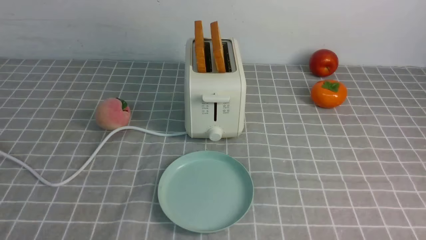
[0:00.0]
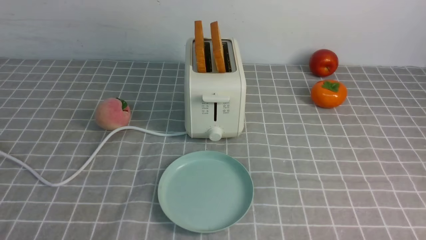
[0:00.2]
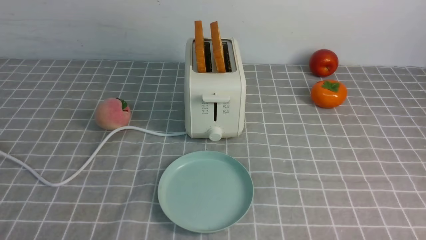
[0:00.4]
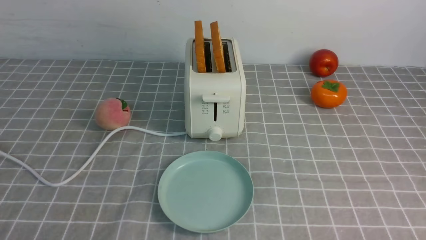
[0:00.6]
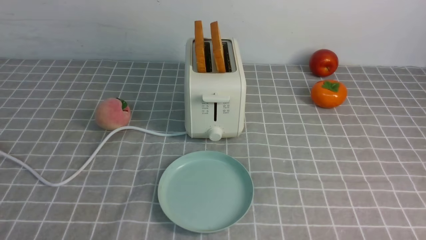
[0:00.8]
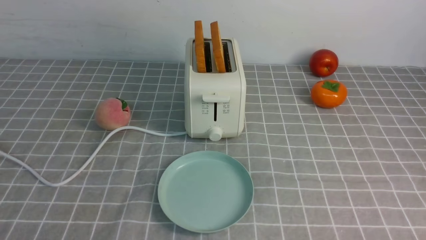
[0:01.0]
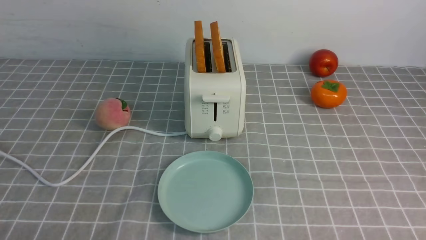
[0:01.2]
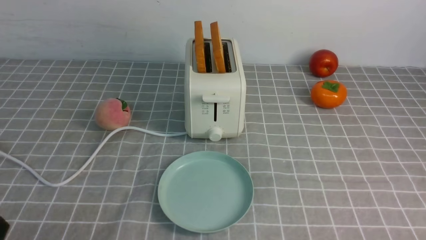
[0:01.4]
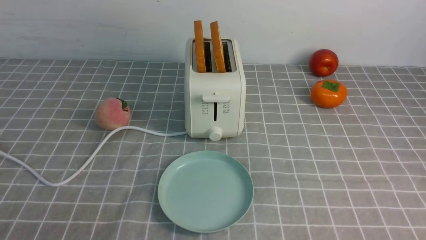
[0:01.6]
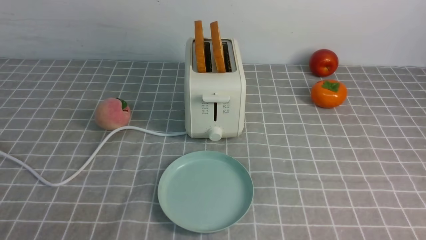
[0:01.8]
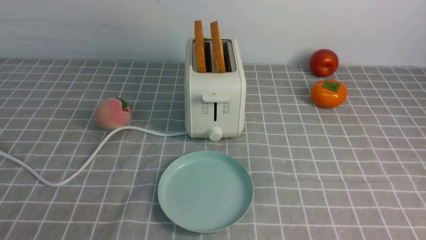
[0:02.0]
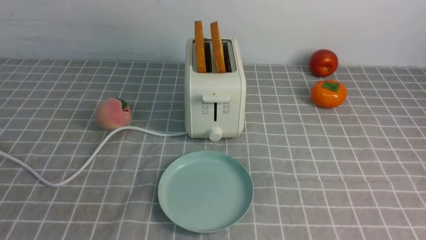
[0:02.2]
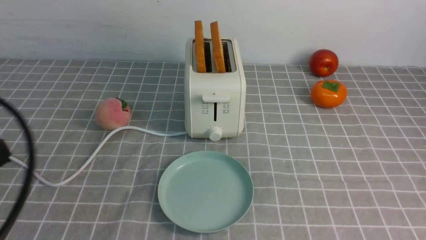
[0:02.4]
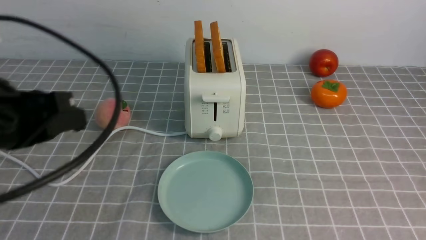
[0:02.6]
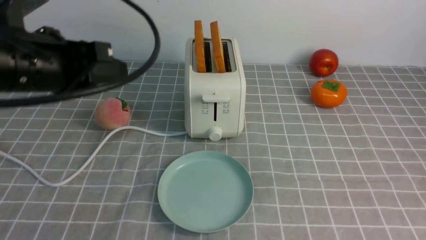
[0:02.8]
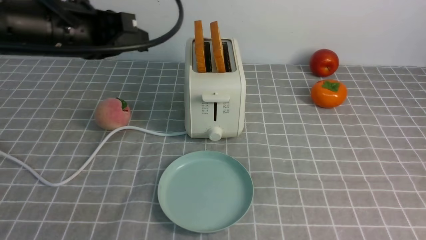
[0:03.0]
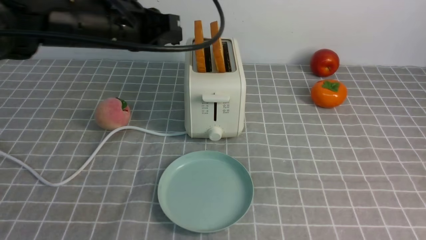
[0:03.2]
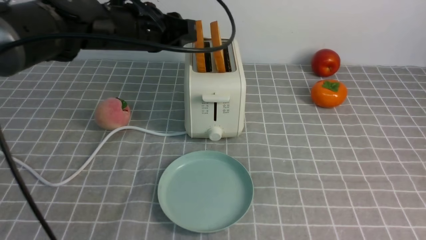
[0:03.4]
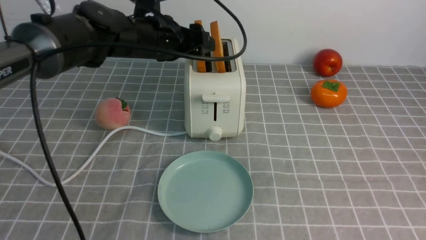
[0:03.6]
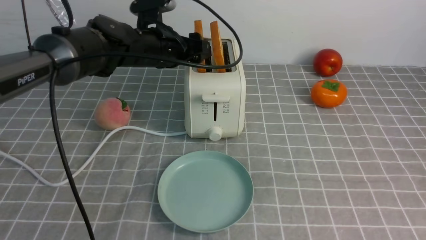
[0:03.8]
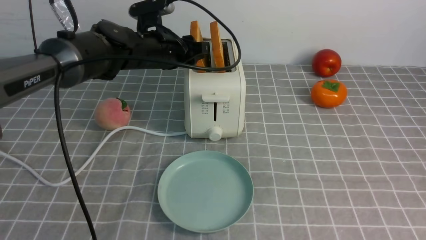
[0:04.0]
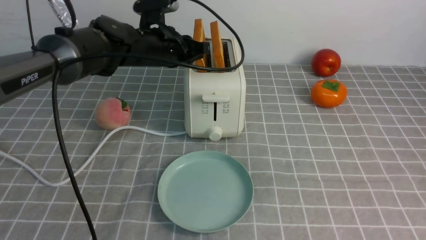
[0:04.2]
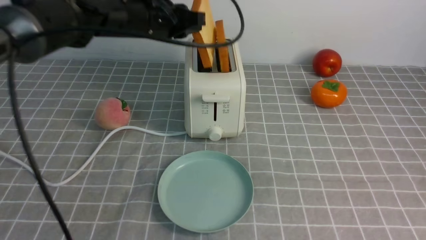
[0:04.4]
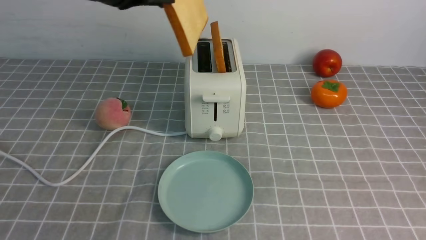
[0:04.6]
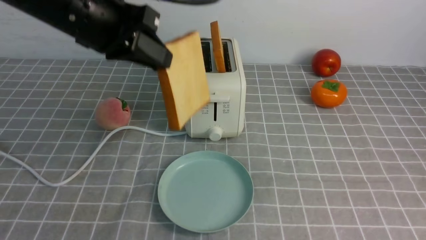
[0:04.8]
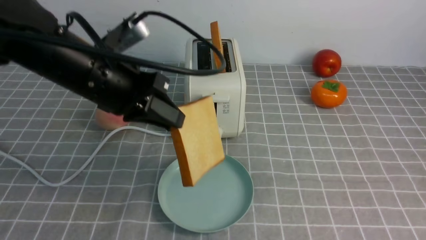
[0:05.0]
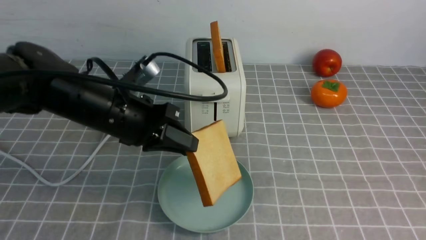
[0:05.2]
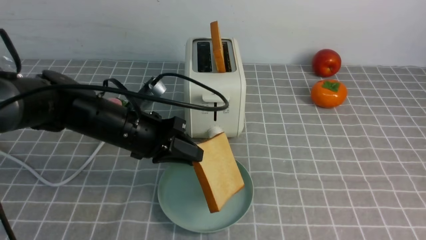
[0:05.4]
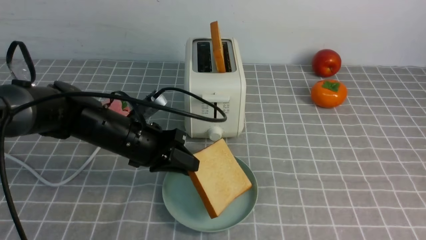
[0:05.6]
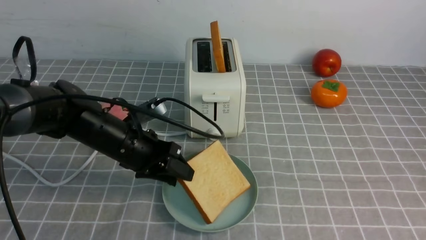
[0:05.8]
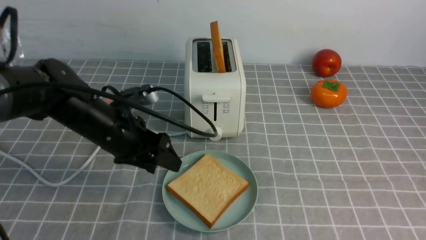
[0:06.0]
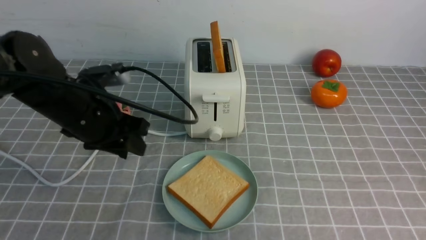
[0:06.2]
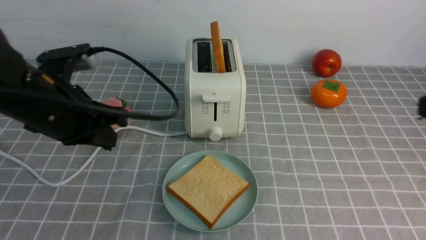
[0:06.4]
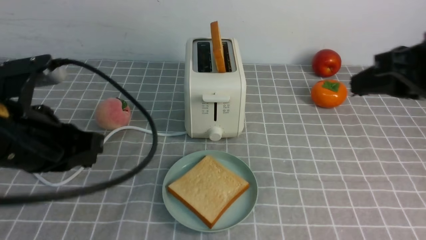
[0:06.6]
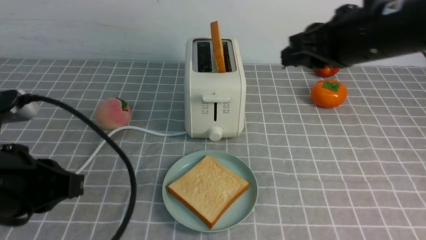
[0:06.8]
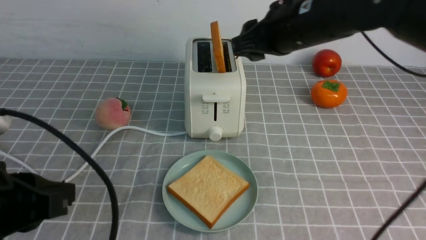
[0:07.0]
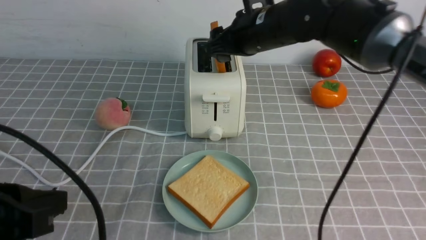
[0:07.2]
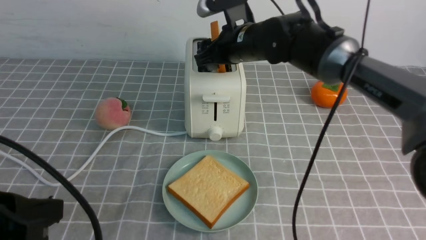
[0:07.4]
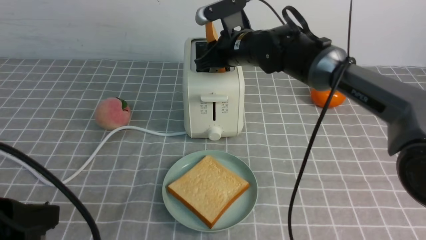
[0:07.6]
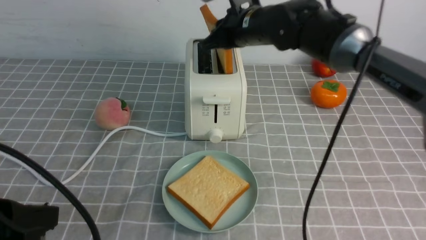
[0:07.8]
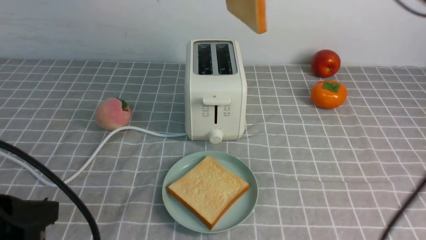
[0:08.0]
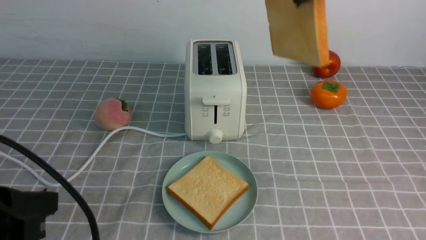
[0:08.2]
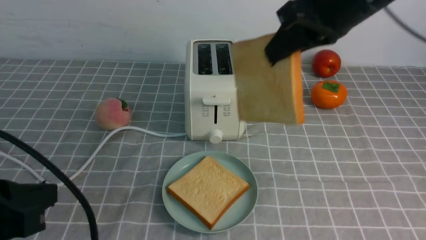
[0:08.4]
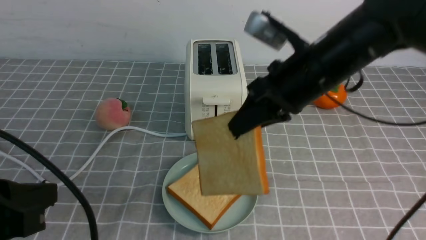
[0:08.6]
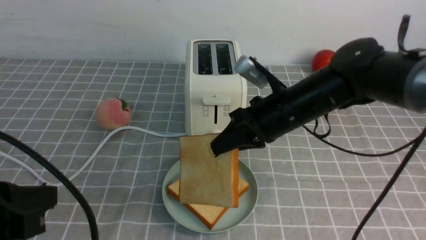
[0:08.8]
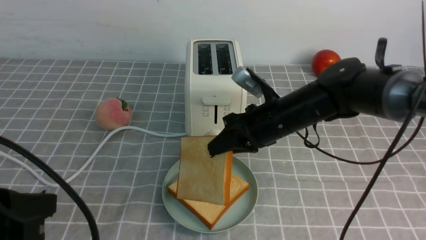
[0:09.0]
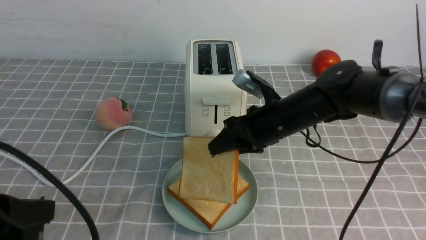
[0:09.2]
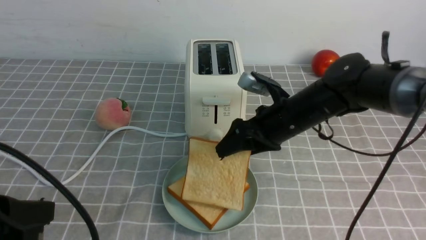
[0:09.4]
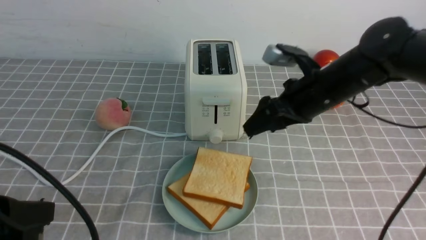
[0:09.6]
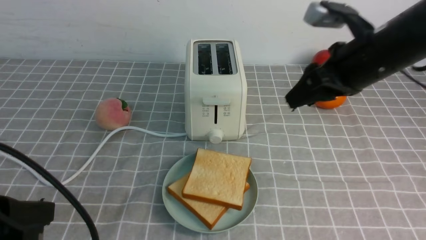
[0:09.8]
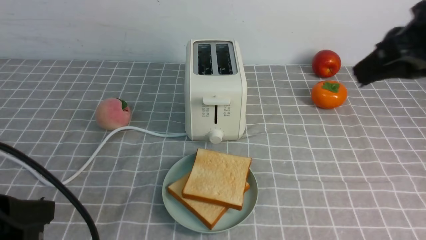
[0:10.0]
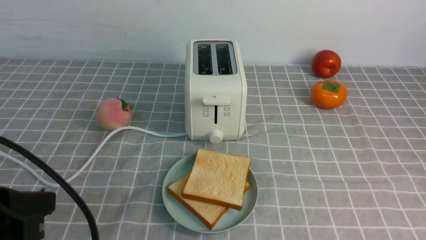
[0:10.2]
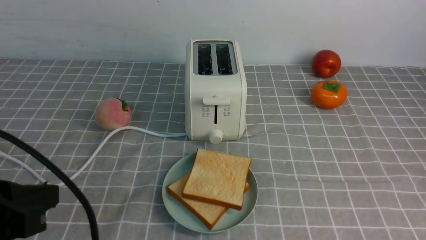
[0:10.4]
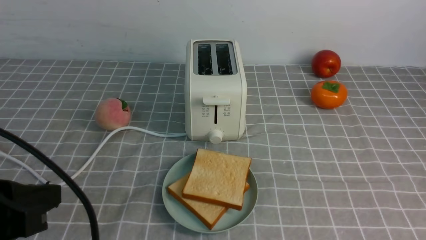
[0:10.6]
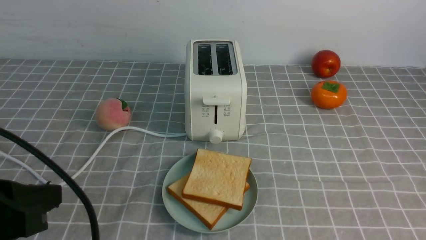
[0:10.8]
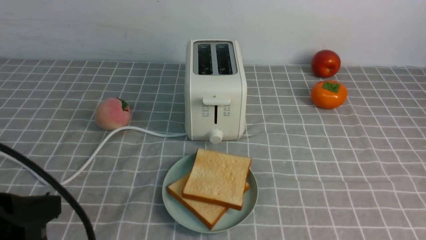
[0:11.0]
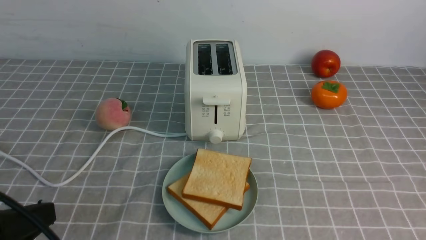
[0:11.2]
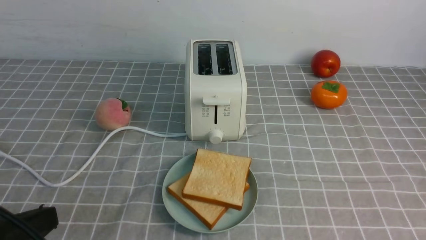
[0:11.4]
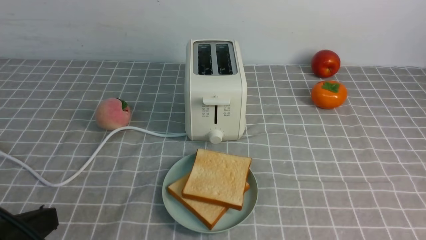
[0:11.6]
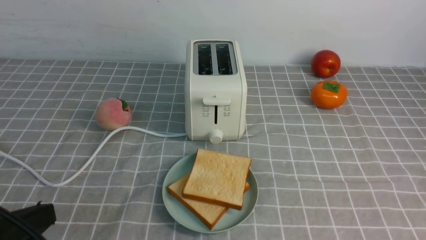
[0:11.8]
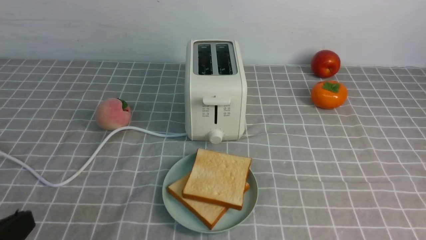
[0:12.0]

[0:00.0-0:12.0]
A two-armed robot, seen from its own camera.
Task of the whole recording: take toasted bread from bread machine on grey coffee table place on plate.
Step, 0:00.0 to 0:04.6: use the left arm to take out a slice of bread.
Step, 0:04.8 to 0:06.0: use the left arm to put a slice of bread into the empty plate.
Step, 0:06.2 to 0:08.0: use the right arm to take out a slice of bread.
Step, 0:08.2 to 0:09.6: use the right arm to put a slice of bread into the plate.
0:01.6 to 0:03.0: The left gripper goes some 30 cm forward and upward.
0:03.0 to 0:04.4: The left gripper shifts roughly 10 cm forward, and opens, then closes once more.
0:04.4 to 0:06.0: The left gripper moves downward and backward, approximately 15 cm, and opens up.
0:06.0 to 0:07.6: The left gripper is displaced backward by about 20 cm, and closes its fingers, while the right gripper goes some 40 cm forward and to the left, and opens up.
0:07.6 to 0:09.0: The right gripper travels backward by about 10 cm, and travels upward and back again, some 15 cm each way.
0:09.0 to 0:10.4: The right gripper goes some 40 cm backward, to the right and upward, and closes.
0:10.4 to 0:12.0: The left gripper heads downward, covering some 10 cm.

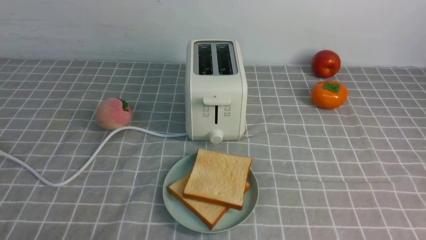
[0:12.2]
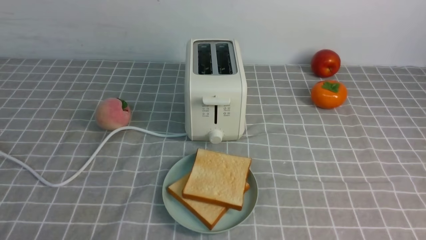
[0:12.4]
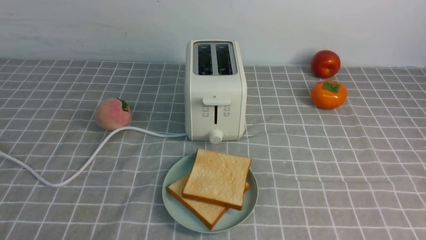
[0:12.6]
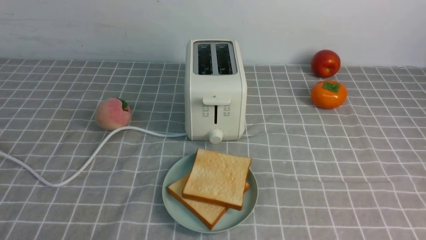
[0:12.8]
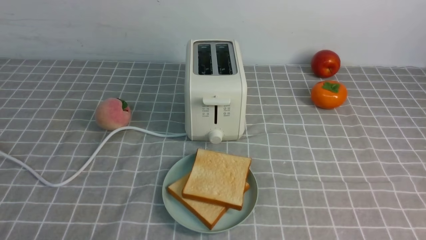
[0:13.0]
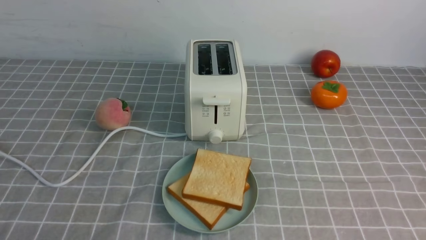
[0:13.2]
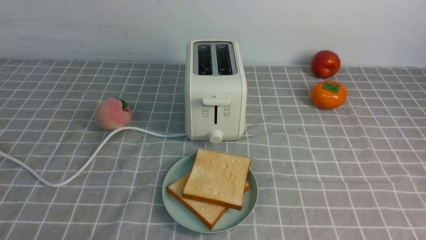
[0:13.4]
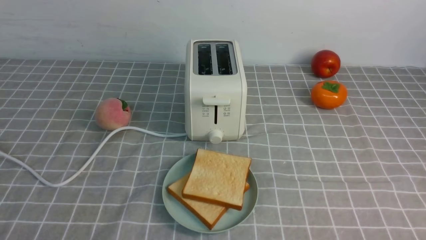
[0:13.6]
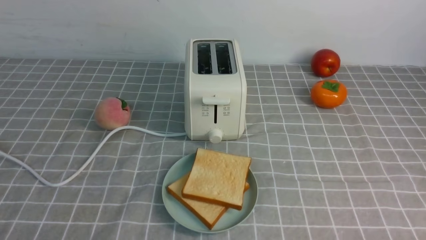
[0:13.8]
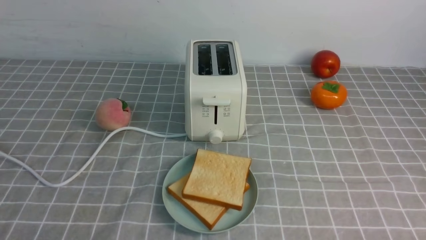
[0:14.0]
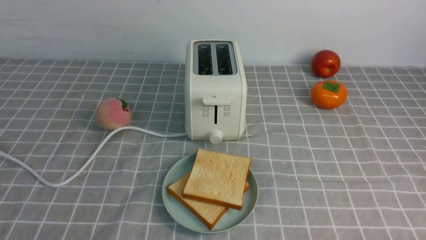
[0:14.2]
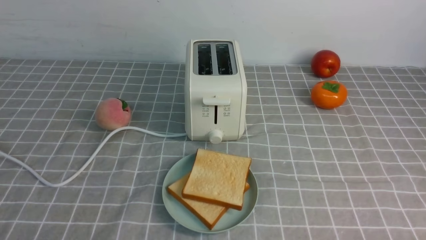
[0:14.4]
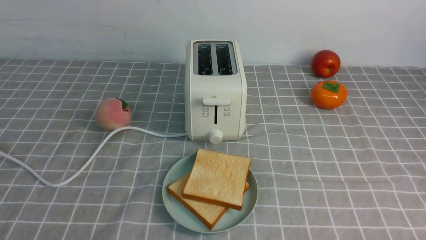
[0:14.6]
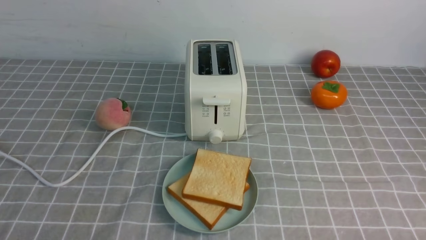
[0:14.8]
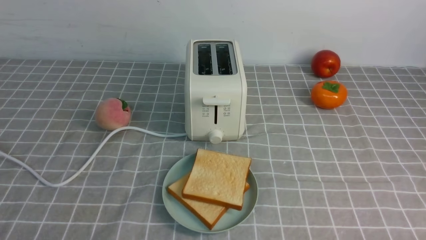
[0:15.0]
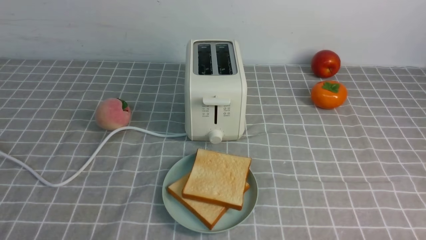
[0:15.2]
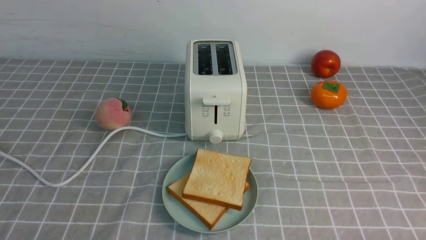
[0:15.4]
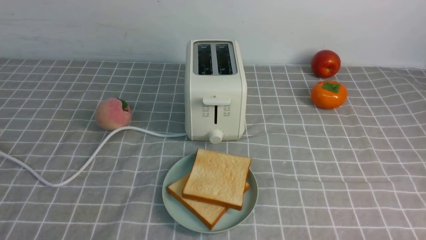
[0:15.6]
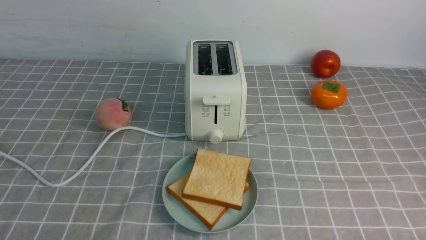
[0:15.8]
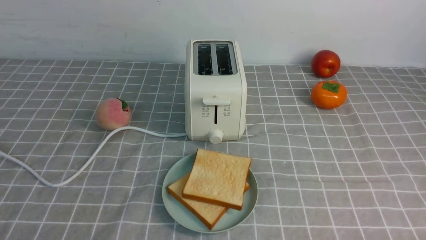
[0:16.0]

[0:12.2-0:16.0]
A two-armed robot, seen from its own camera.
Task of the whole recording: take toasted bread from bread machine on grey coffee table place on plate.
0:14.8 to 0:16.0: Both grippers stay about where they are.
